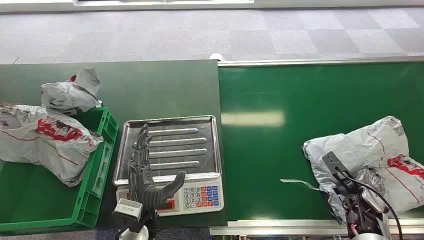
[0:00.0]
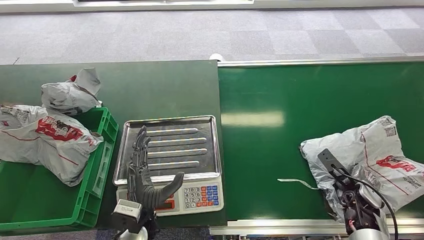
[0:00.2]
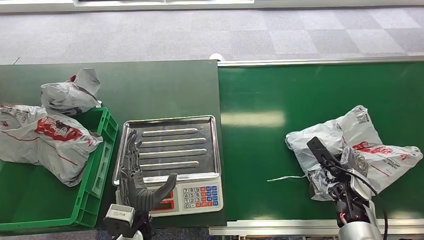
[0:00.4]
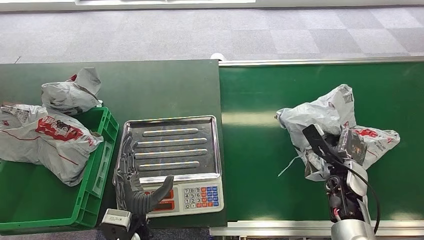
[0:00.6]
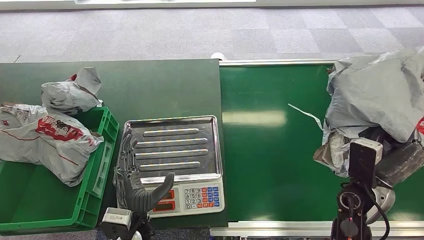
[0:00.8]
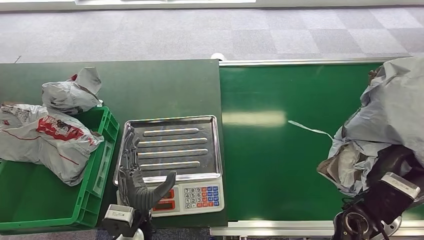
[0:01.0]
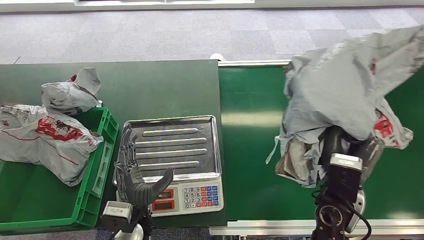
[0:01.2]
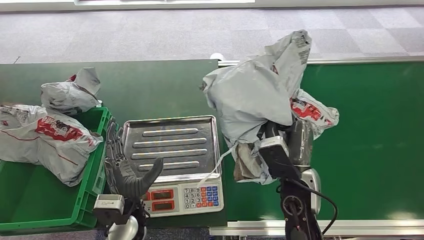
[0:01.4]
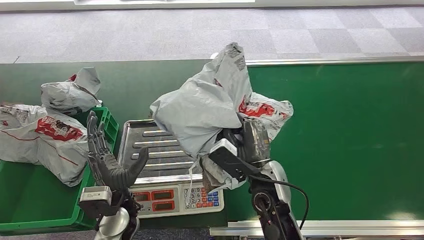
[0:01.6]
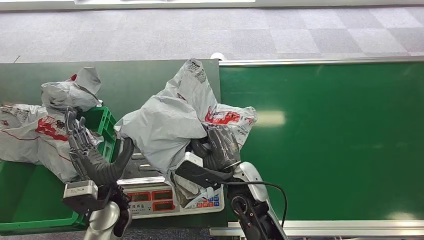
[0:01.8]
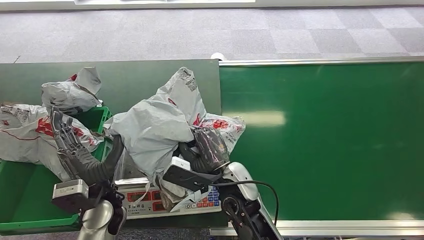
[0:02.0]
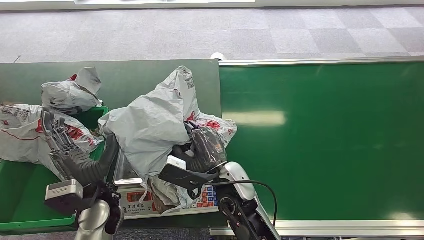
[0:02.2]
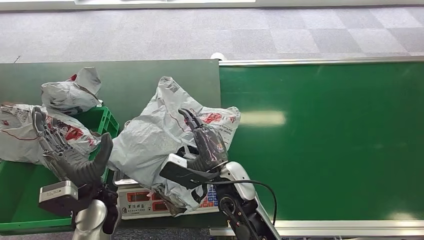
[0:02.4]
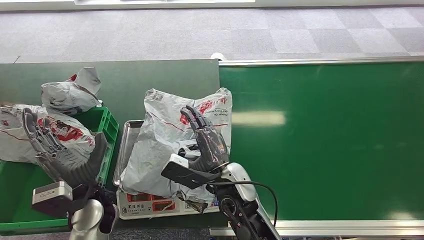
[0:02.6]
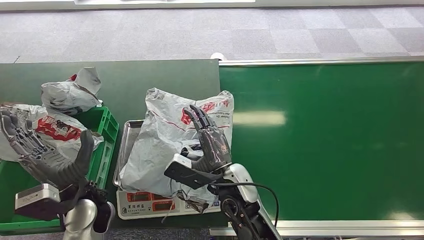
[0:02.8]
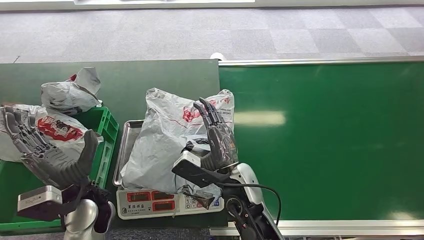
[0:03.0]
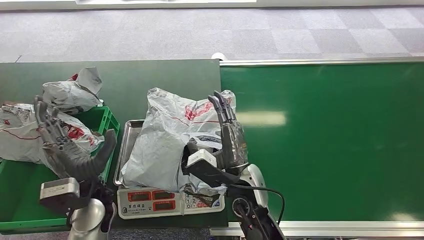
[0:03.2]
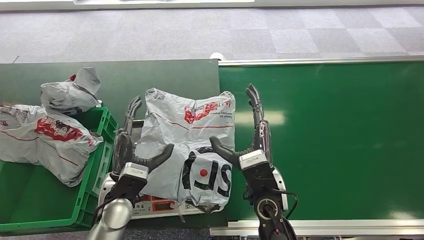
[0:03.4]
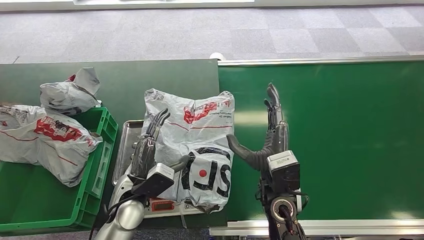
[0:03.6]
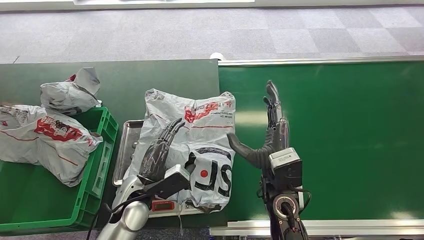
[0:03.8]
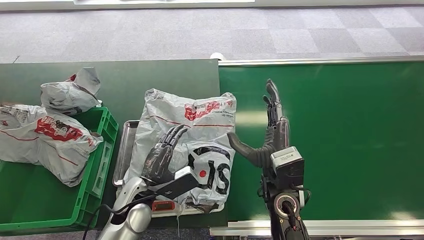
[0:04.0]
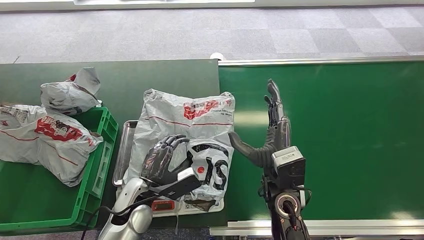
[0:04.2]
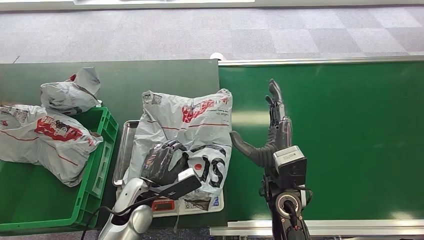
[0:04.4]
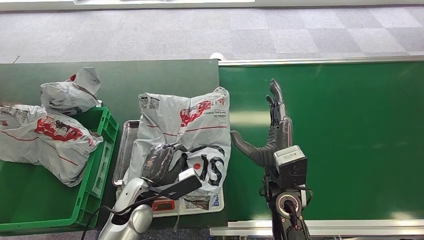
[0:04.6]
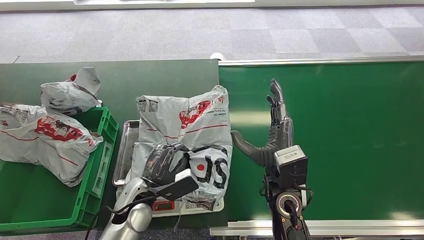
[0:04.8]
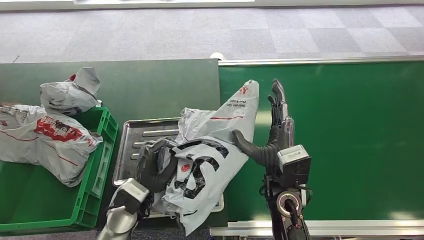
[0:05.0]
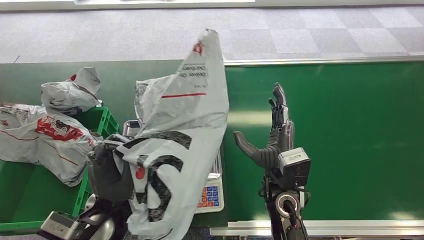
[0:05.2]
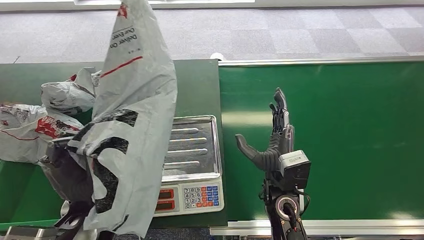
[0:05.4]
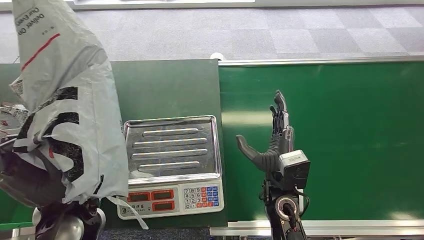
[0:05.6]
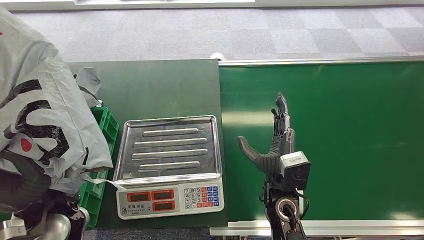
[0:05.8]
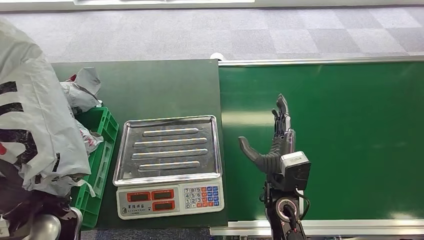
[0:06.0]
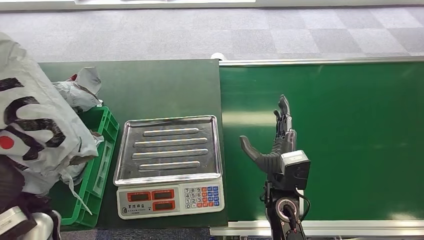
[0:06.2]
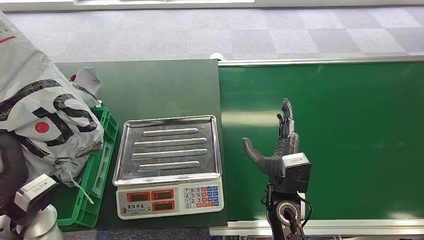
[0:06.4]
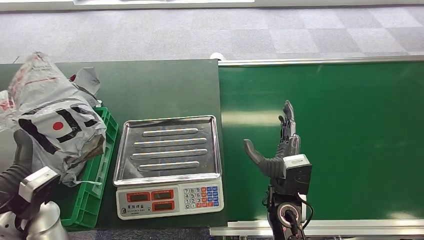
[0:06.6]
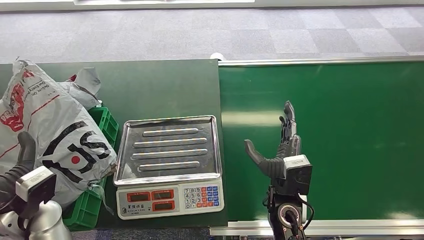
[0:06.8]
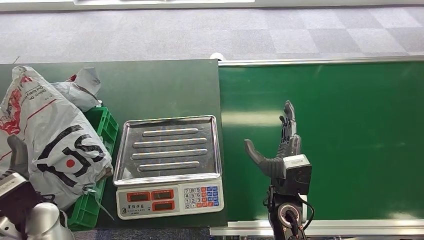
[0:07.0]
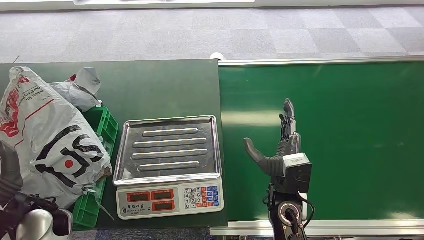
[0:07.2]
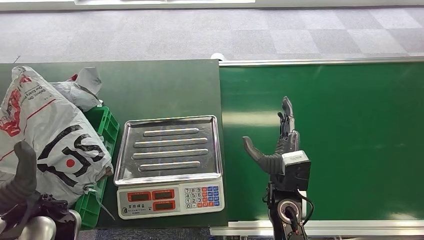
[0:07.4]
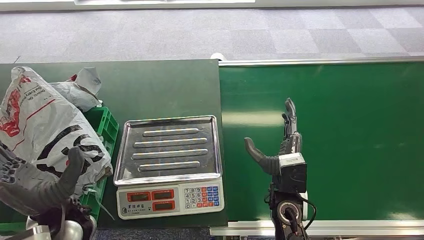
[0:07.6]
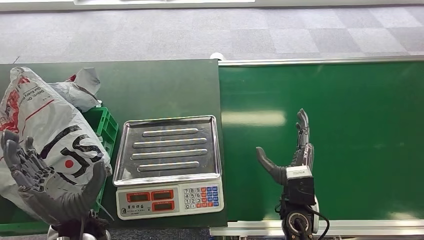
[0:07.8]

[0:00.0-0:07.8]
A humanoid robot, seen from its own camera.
Task of the whole recording: Weigh the package on the weighing device and place it in the left basket.
Step, 0:00.0 to 0:00.8: Pick up the package from the conveyor belt.
Step, 0:01.6 to 0:03.2: Place the package onto the inbound machine.
Step, 0:04.8 to 0:06.4: Pick up the package from the inbound machine.
Step, 0:06.8 to 0:07.8: Place the package into the parcel locker.
0:06.2 to 0:07.8: The left hand goes approximately 10 cm to the right.
